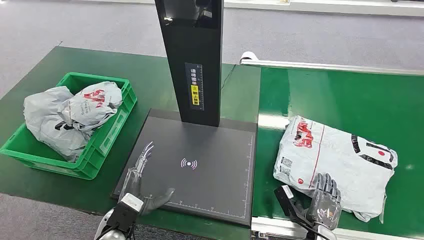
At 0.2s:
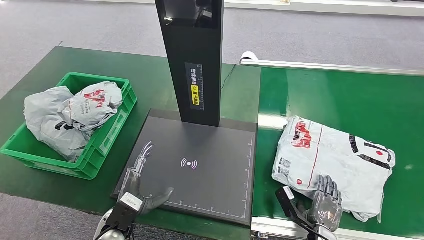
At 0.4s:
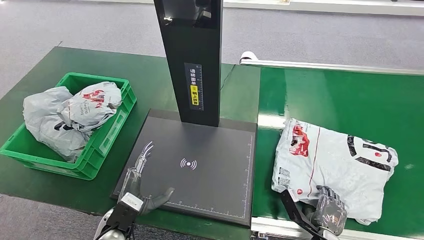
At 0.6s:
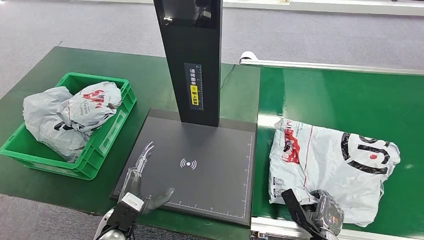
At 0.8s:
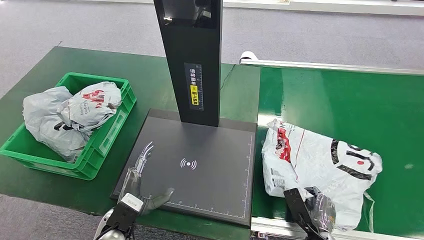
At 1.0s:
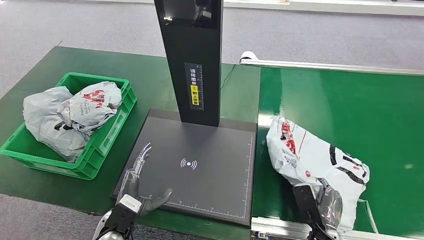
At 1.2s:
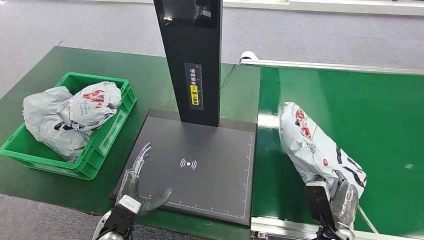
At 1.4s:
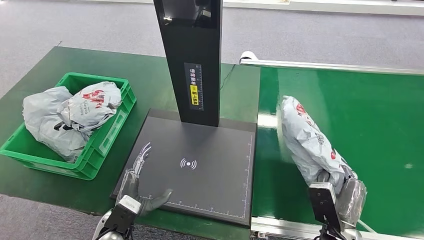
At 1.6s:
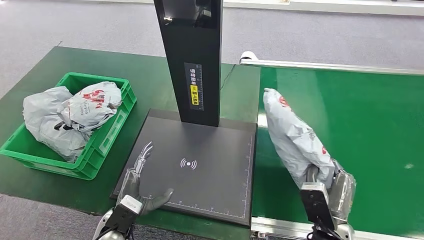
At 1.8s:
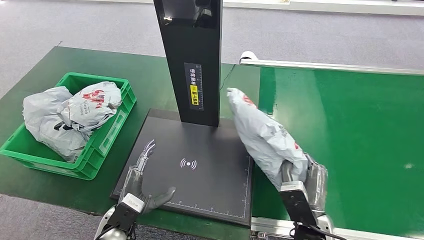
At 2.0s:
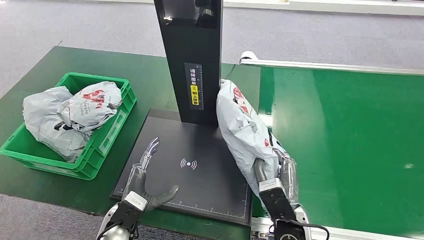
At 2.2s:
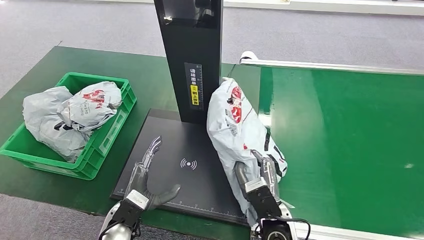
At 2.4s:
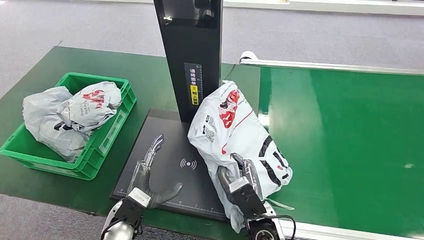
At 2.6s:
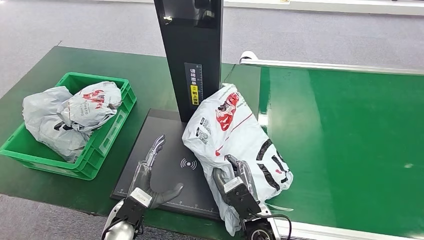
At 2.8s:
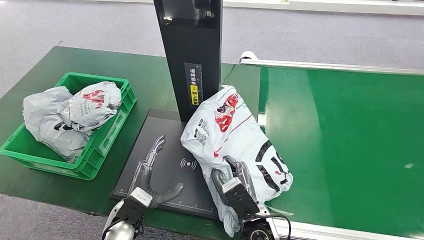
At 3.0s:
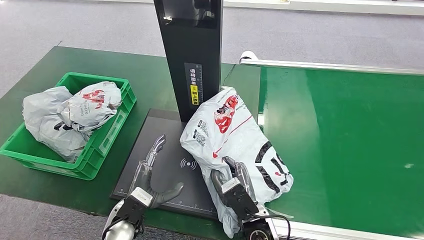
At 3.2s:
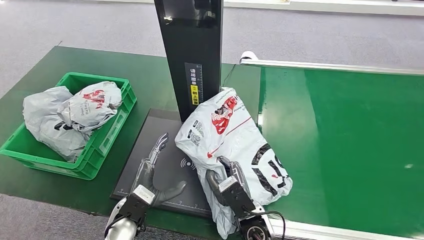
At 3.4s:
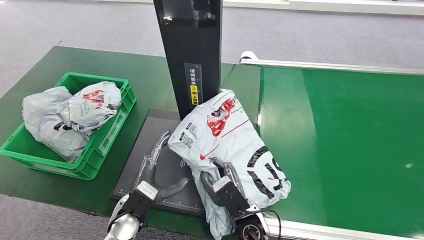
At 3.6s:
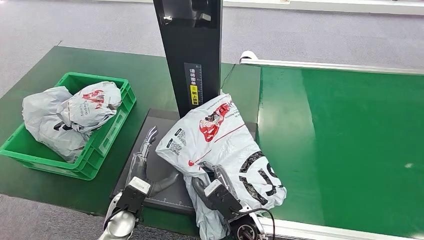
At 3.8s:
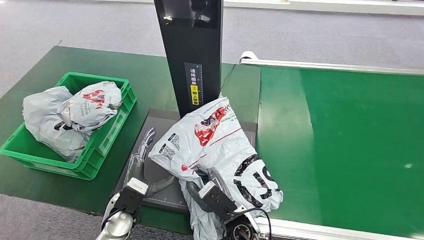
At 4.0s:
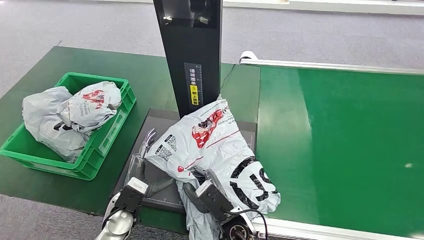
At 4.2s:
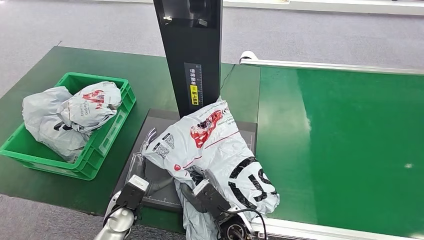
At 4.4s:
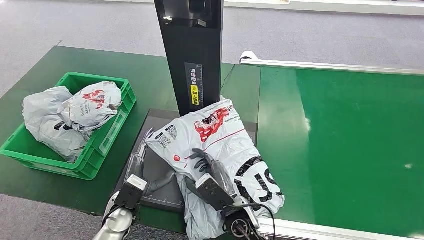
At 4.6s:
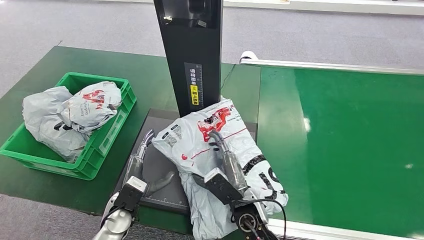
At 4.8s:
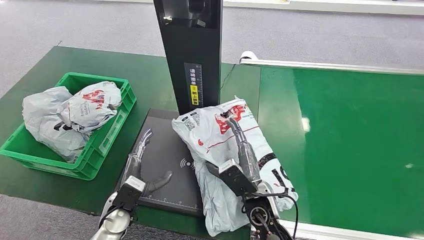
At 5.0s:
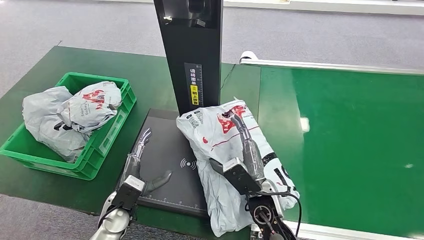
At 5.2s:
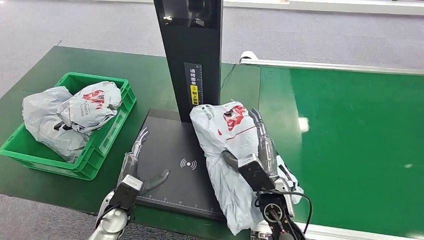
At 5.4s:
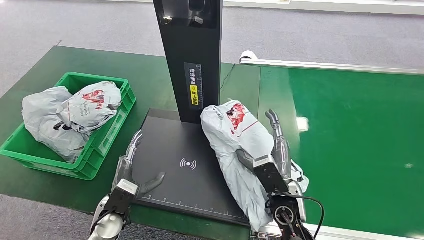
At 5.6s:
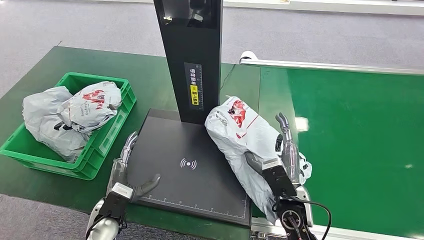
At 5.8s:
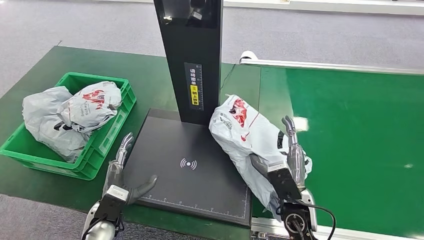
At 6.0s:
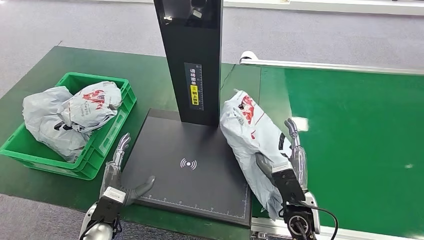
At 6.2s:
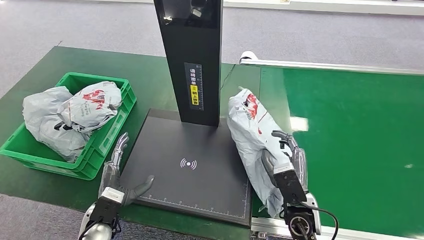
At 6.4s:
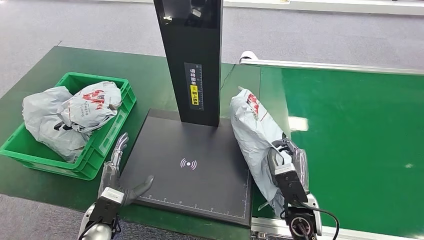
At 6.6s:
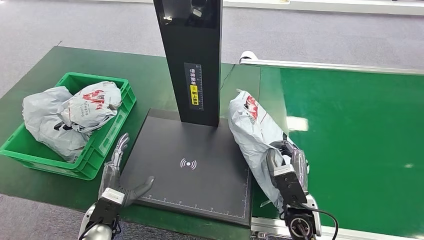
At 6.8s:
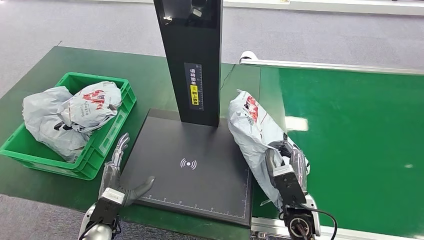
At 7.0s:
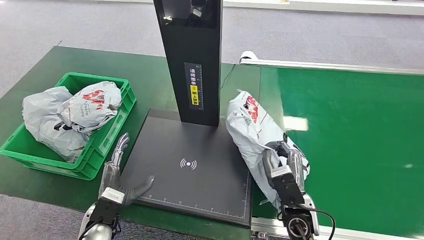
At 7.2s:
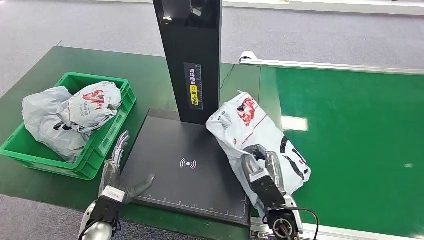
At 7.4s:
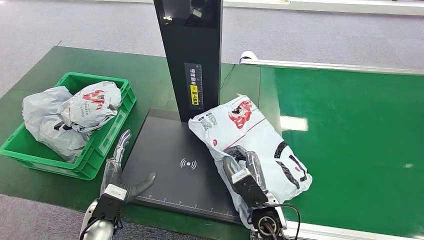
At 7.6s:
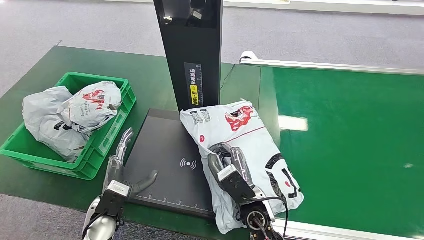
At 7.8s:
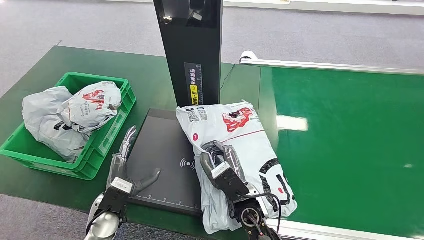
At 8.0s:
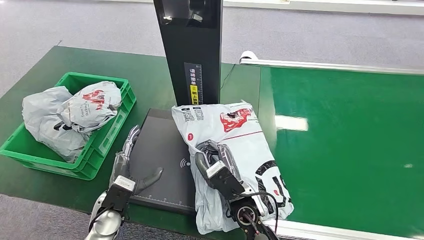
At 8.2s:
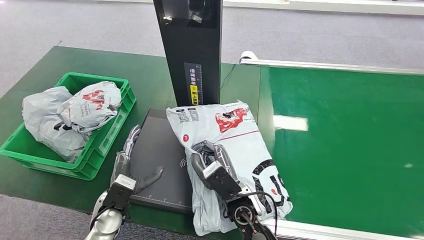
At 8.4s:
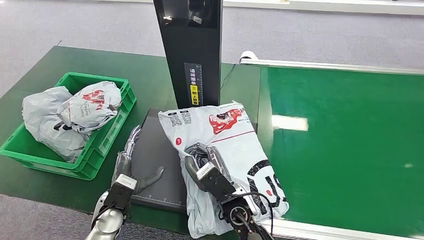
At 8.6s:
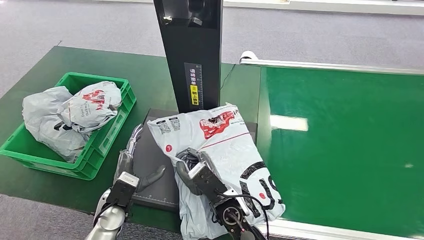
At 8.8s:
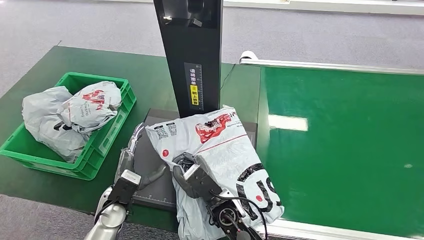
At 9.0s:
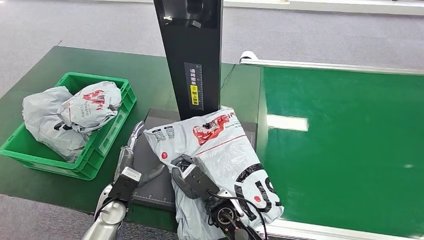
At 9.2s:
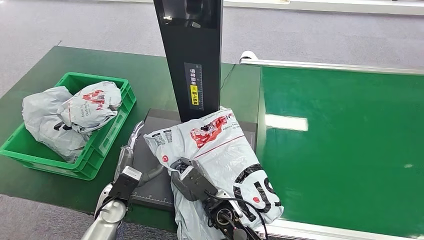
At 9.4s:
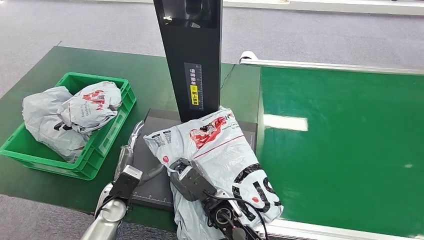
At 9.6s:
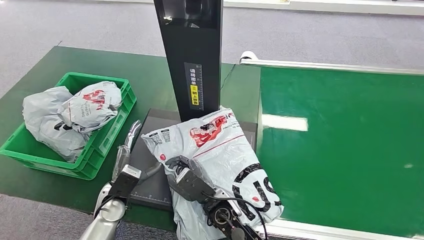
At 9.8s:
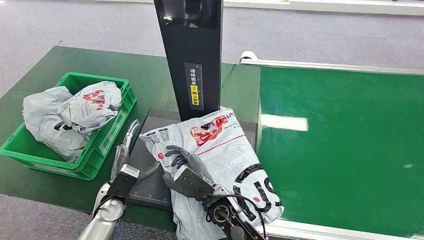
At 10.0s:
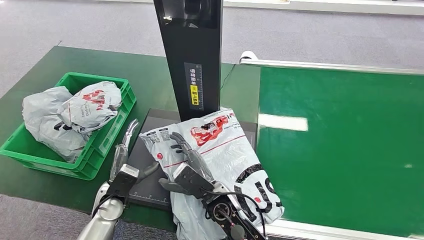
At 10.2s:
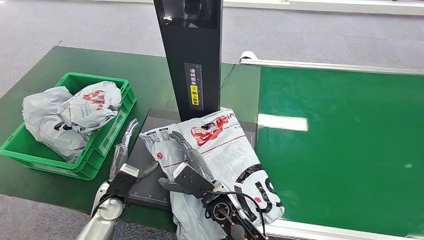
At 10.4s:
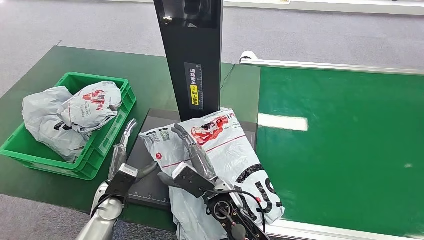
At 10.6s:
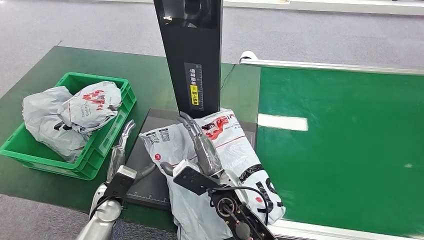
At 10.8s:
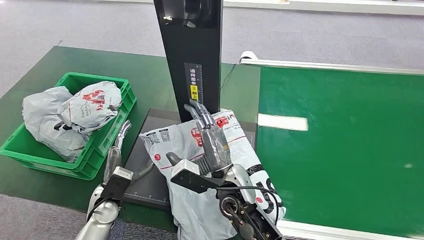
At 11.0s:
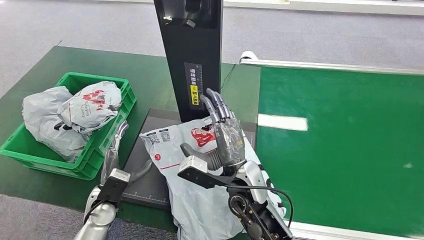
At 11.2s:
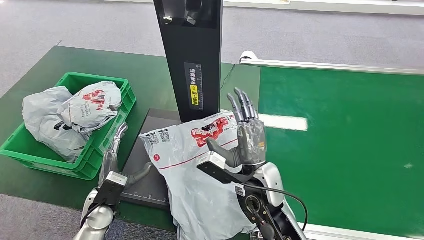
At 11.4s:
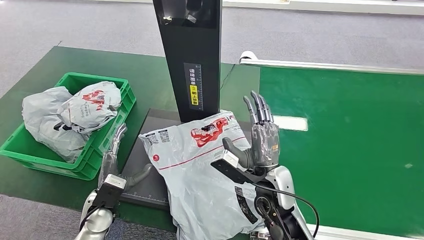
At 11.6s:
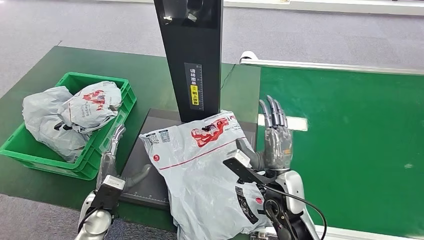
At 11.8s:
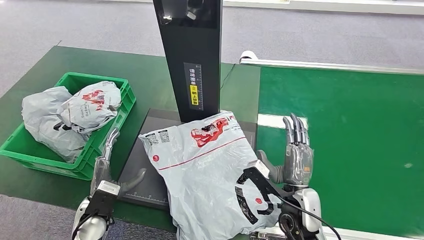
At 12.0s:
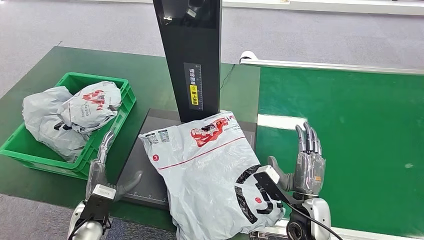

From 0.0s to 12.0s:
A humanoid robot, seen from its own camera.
Step, from 0.0s to 1.8s: Pick up the package from the conveyor belt.
Step, from 2.0s to 11.4s: Place the package onto the inbound machine.
From 3.0s to 4.4s: The hands move only a little.
From 6.0s to 7.6s: The right hand heads to the left, covering approximately 10 cm.
From 7.6s to 9.0s: The right hand goes approximately 5 cm to the left.
From 9.0s to 10.4s: The hands move only a little.
From 10.4s to 12.0s: The right hand goes roughly 20 cm to the right, while the left hand moves backward, approximately 5 cm.

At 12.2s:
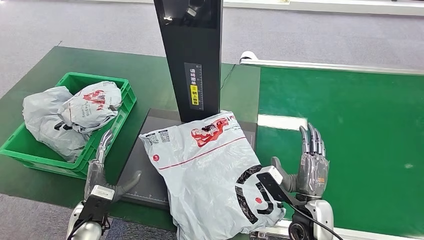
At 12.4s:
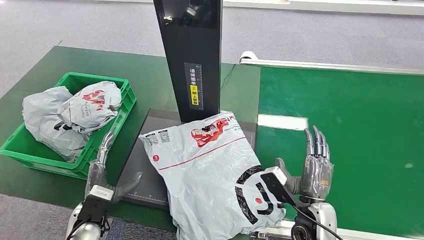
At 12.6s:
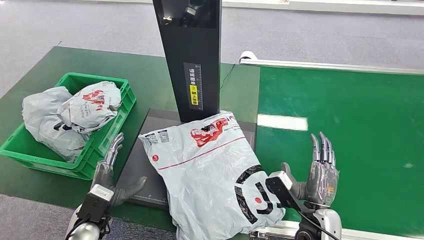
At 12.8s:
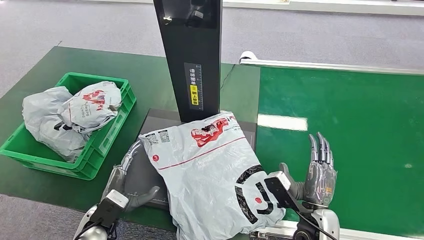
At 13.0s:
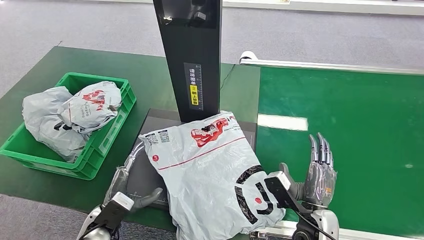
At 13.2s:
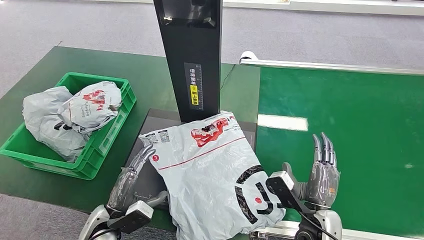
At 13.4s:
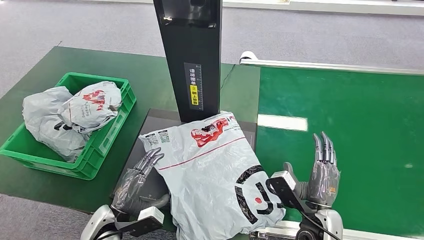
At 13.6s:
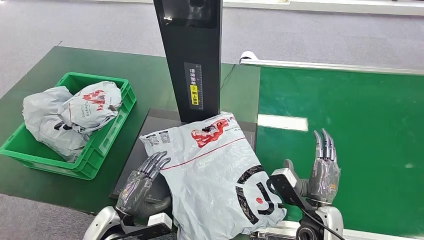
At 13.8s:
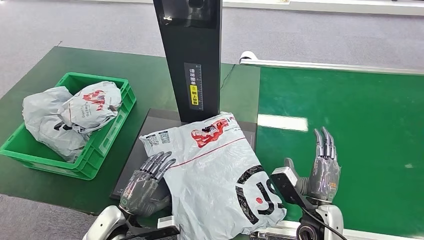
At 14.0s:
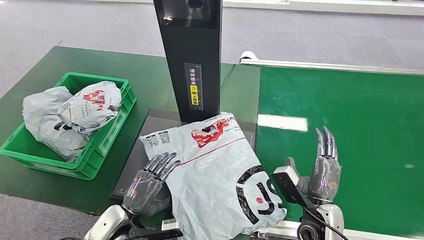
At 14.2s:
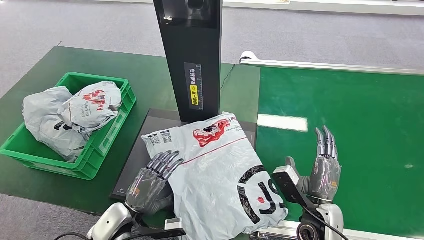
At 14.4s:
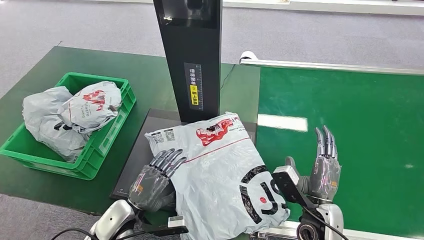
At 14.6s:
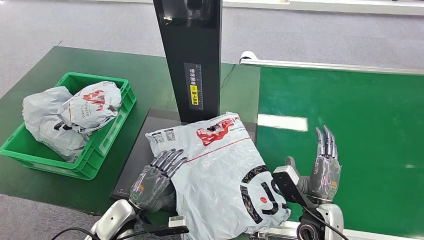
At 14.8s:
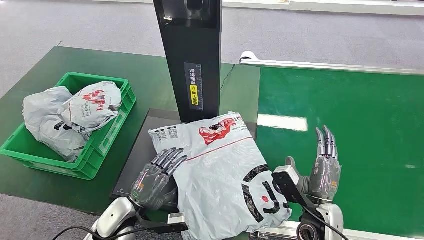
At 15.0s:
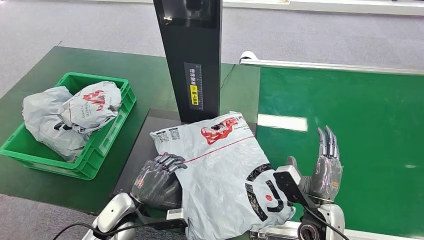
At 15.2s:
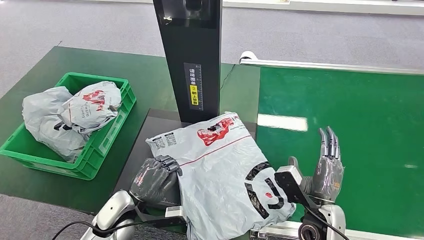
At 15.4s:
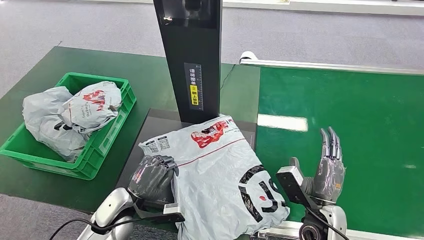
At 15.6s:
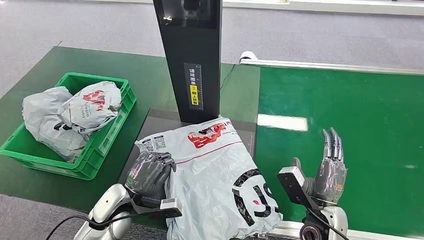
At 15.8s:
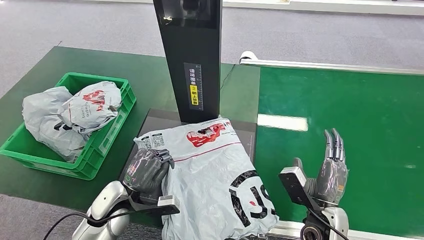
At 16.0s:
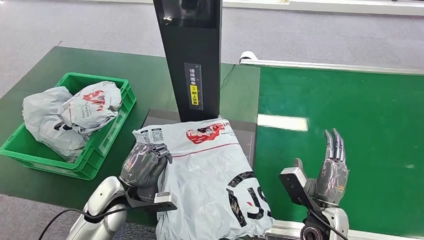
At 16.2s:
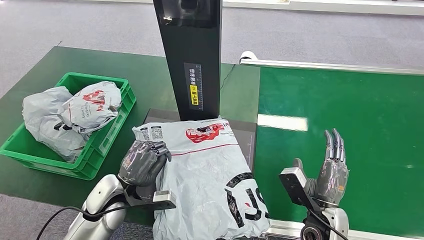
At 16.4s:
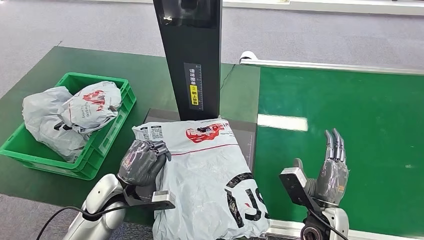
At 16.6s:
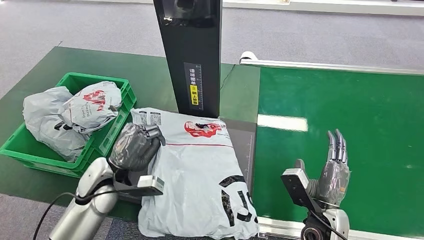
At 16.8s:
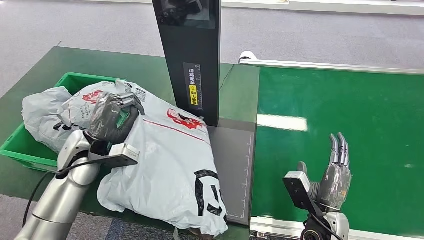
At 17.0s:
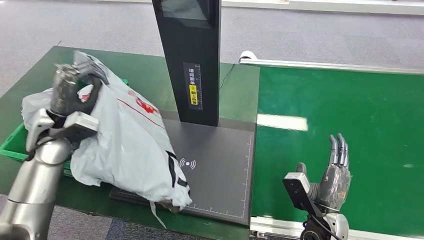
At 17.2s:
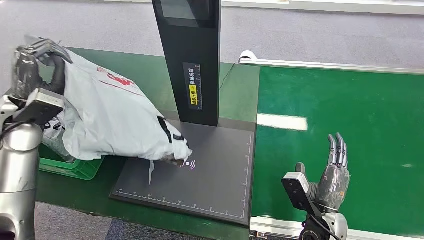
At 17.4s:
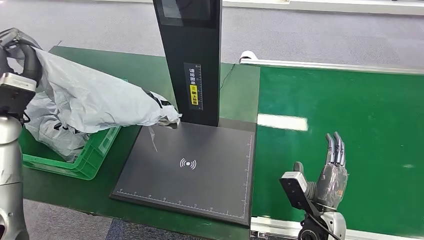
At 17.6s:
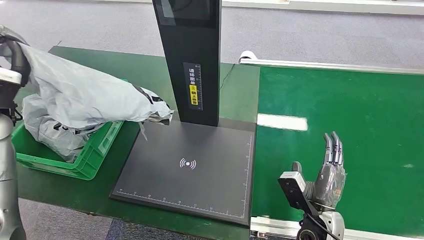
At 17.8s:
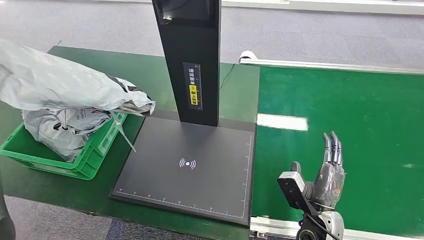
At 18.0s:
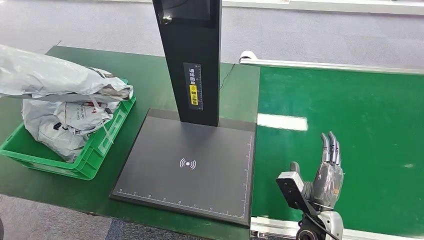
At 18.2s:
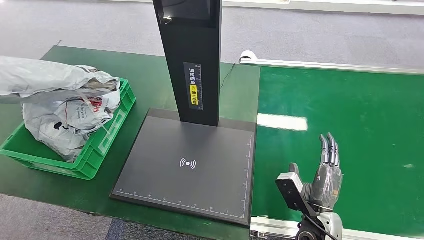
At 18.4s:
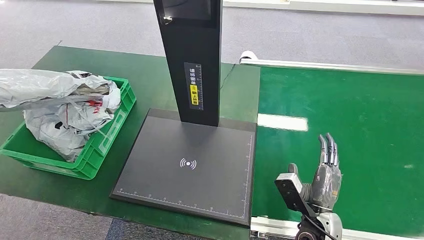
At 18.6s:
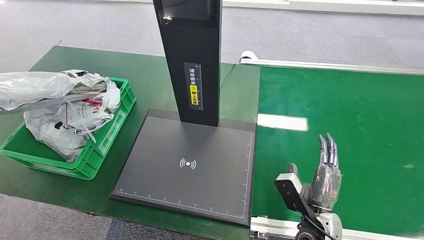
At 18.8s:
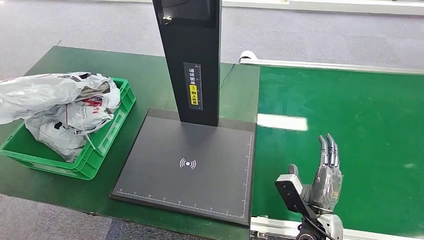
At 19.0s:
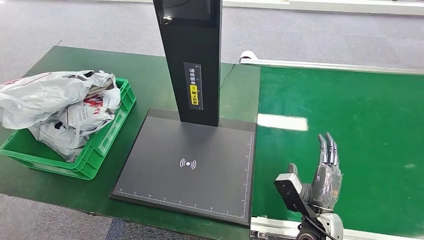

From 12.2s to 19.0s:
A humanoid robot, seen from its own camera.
Step, from 12.2s to 17.0s: Pick up the package from the inbound machine.
From 13.6s to 15.0s: The hands stay close to where they were, moving slightly.
From 15.0s to 16.2s: The left hand shifts by about 5 cm.
From 17.6s to 19.0s: The left hand is displaced downward and to the left by approximately 15 cm.
